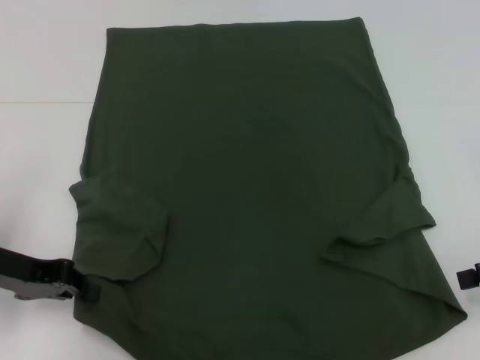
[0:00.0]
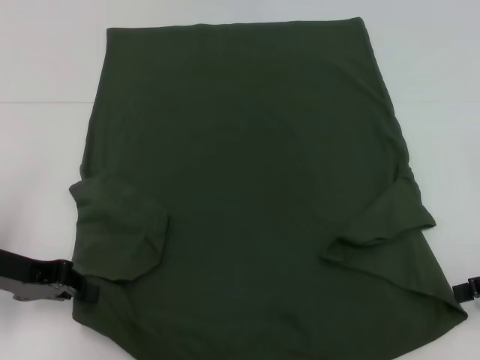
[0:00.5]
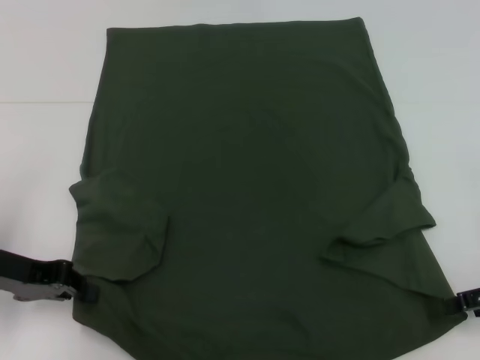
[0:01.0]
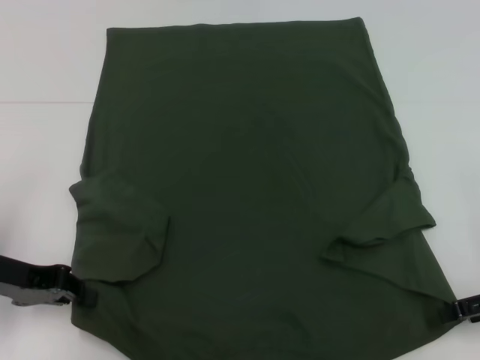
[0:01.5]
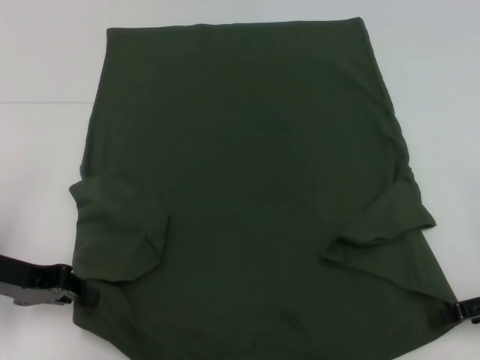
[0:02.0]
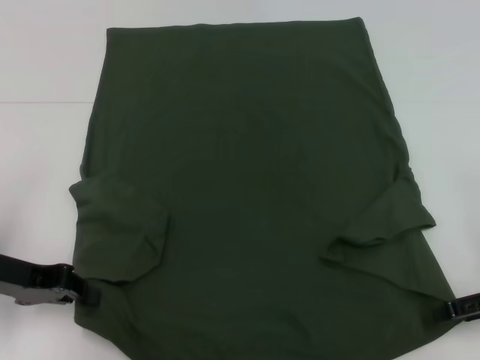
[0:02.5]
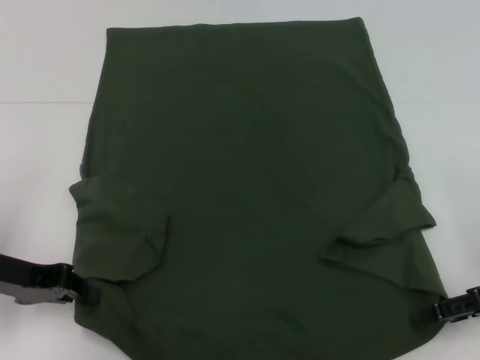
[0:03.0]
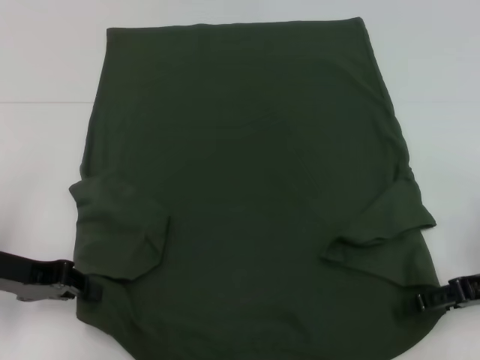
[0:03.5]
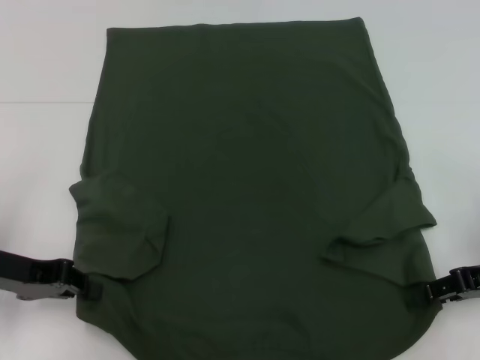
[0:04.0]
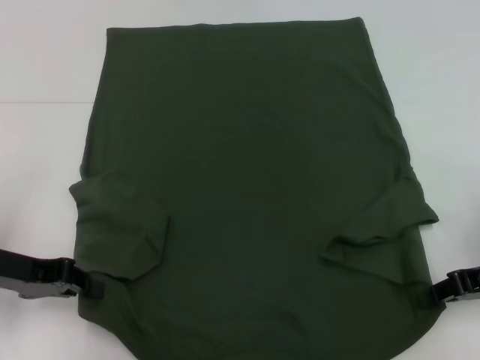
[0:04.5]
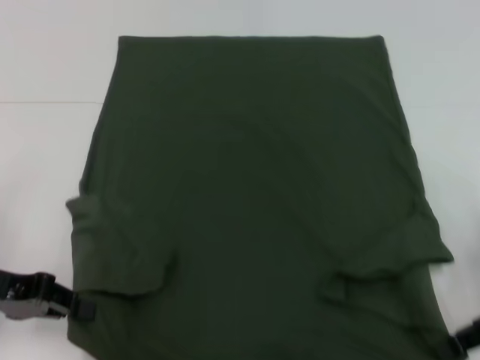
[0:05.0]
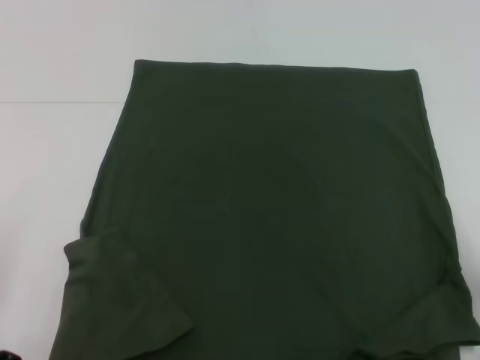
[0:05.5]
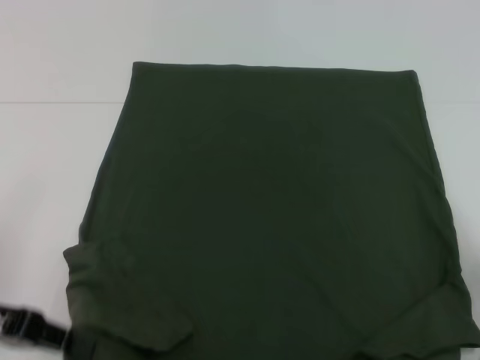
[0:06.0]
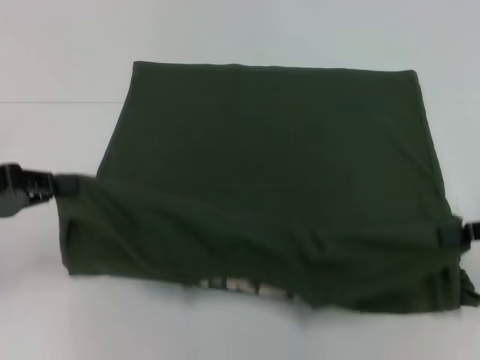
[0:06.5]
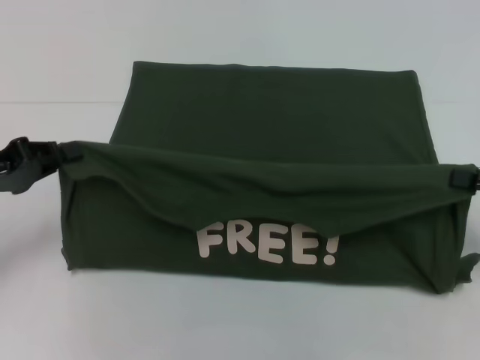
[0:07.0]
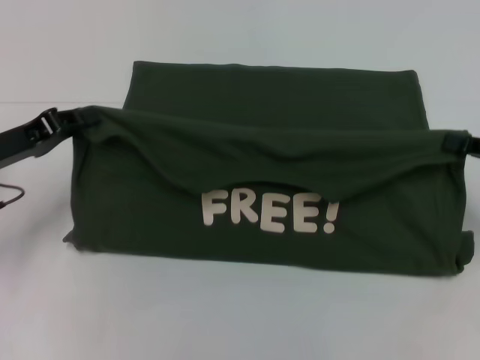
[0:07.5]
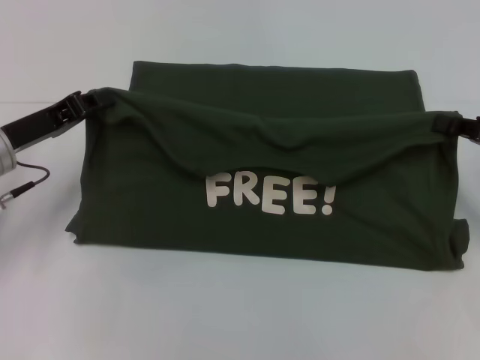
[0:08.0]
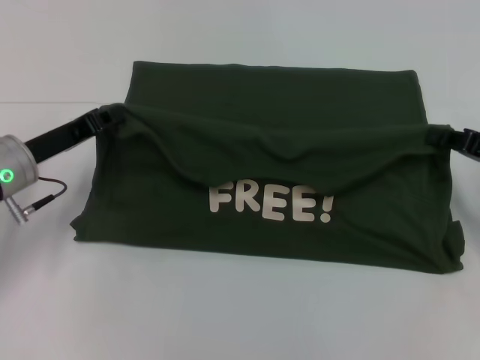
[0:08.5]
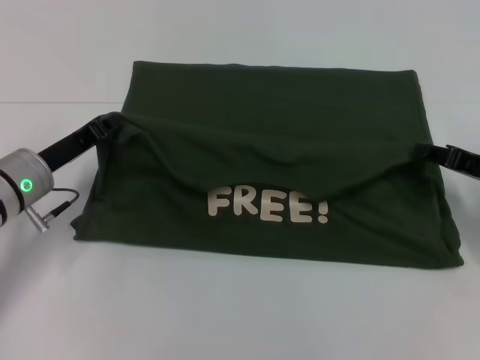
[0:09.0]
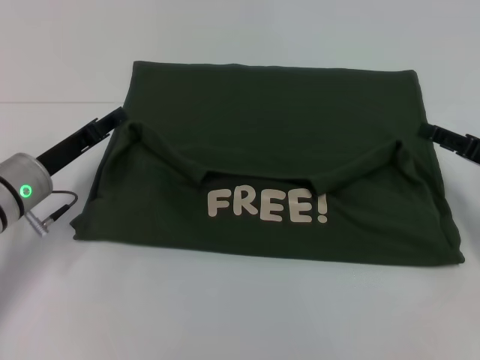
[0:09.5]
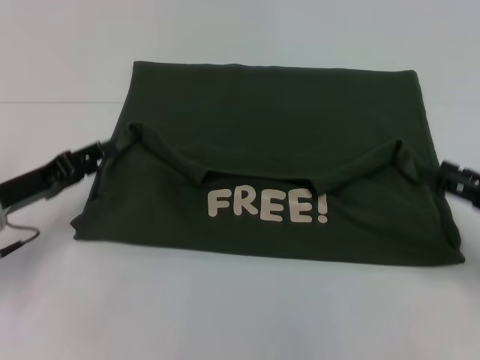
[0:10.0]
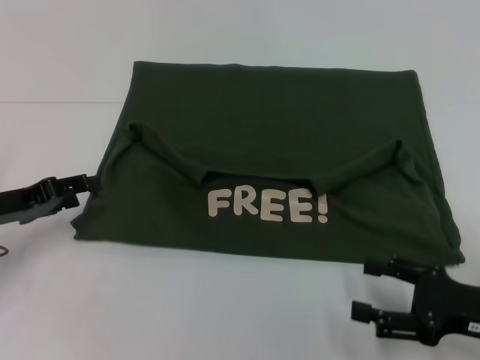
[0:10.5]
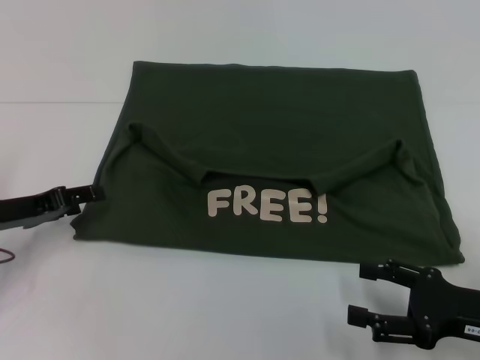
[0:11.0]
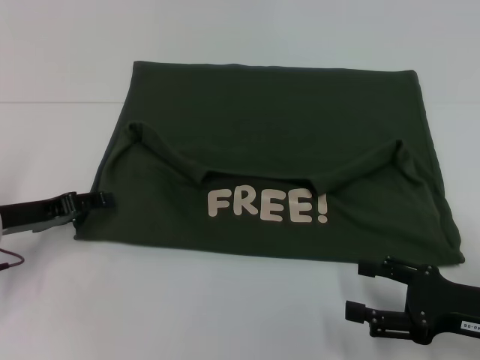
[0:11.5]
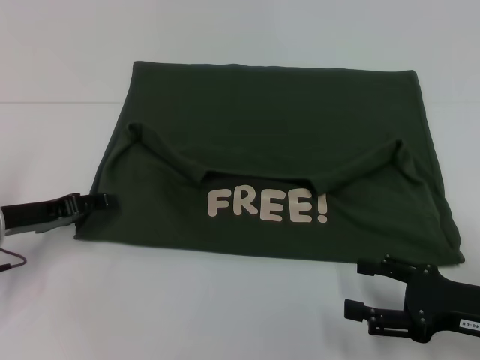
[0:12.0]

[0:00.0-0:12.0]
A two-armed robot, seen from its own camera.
Step, 0:00.0 to 0:02.5: Grab the bottom left corner with your left hand.
Step, 0:00.0 to 0:02.5: Grab the bottom right corner with your right hand.
Step, 0:03.0 to 0:09.0: Fold the clothes with your left hand.
Step, 0:03.0 to 0:09.0: Fold the clothes with your right hand.
0:00.0 to 0:02.0: The grippers stay close to where they were, moving slightly.
0:02.0 to 0:04.0: There are only small adjustments of the grippers.
0:04.0 to 0:06.0: The right gripper closes.
0:06.0 to 0:08.0: Both grippers move forward, some 10 cm.
0:08.0 to 0:10.0: The right gripper moves backward, about 5 cm, and opens its fingers. The left gripper shifts by some 5 cm, and opens its fingers.
0:10.0 to 0:12.0: The right gripper shifts approximately 5 cm to the left.

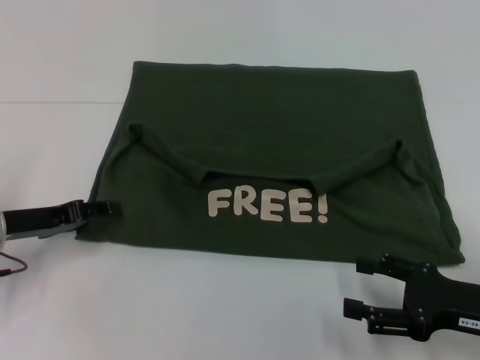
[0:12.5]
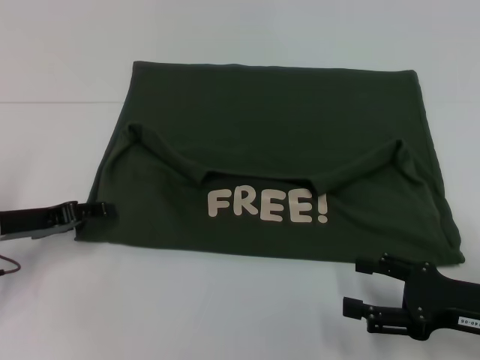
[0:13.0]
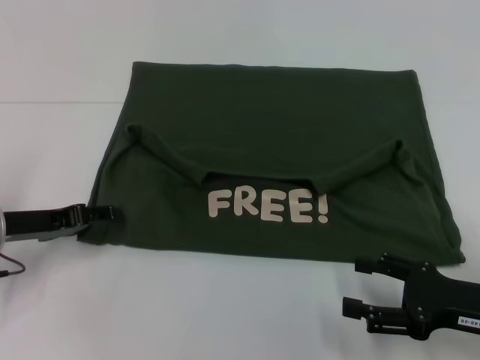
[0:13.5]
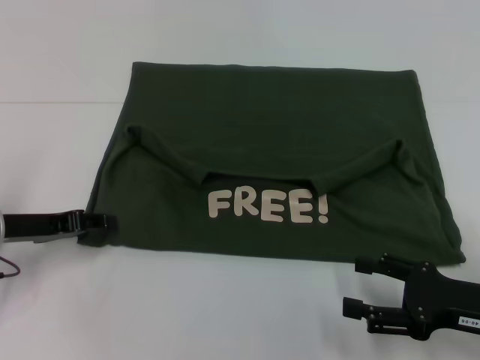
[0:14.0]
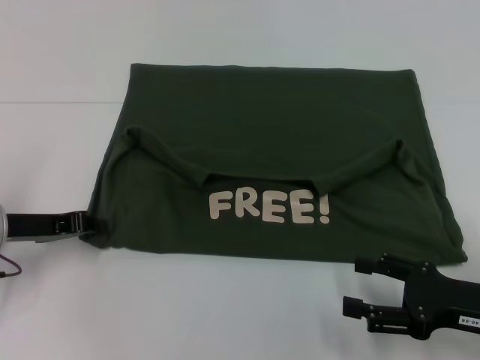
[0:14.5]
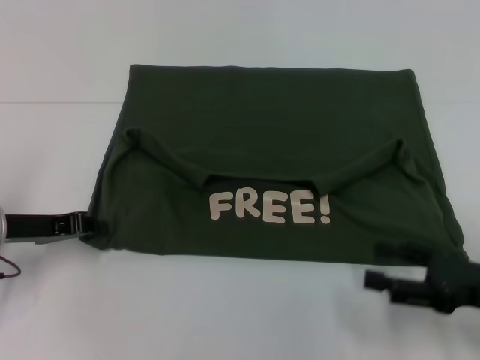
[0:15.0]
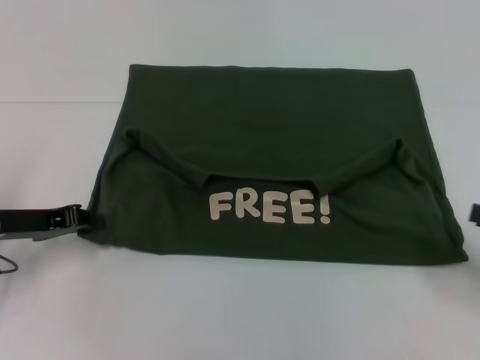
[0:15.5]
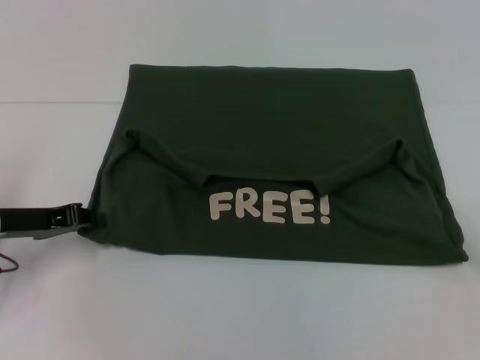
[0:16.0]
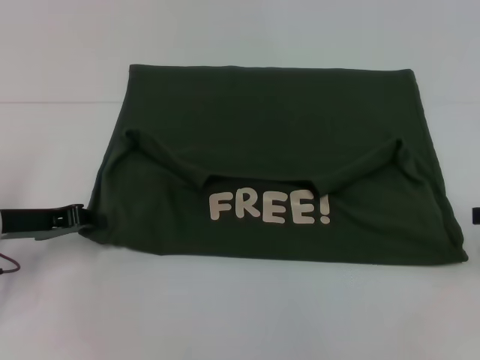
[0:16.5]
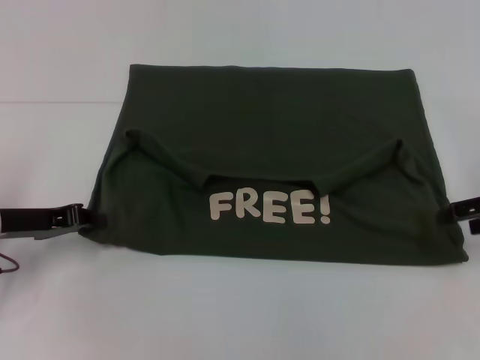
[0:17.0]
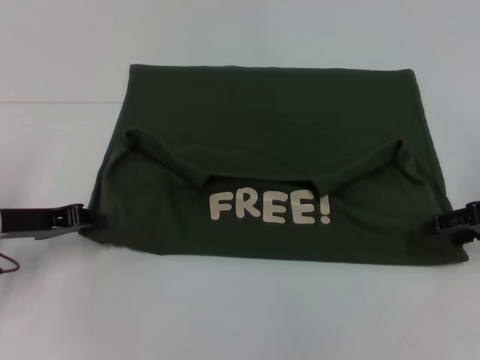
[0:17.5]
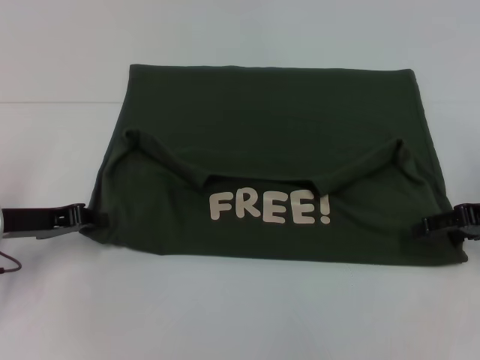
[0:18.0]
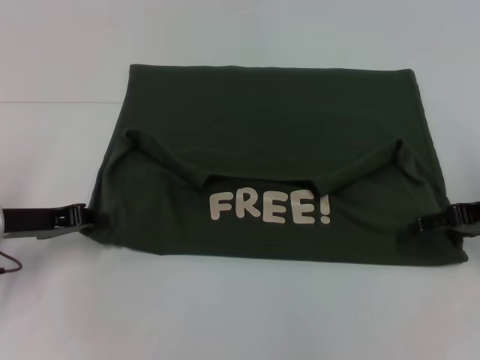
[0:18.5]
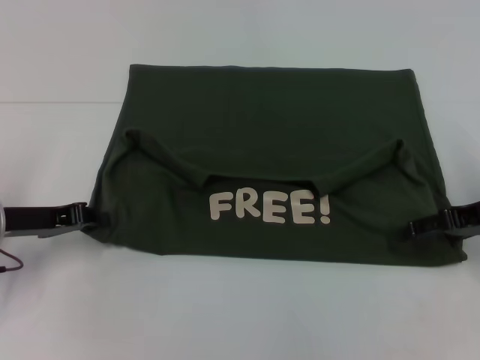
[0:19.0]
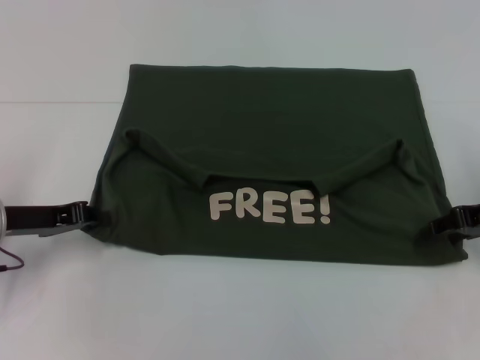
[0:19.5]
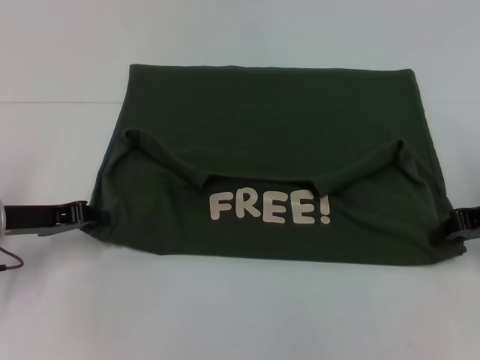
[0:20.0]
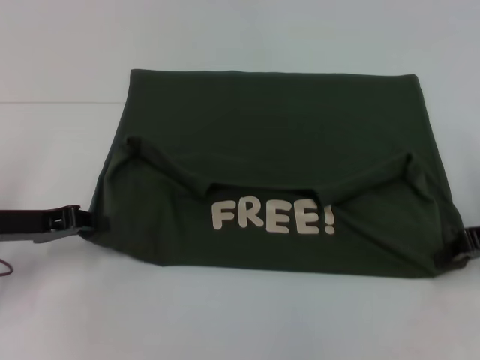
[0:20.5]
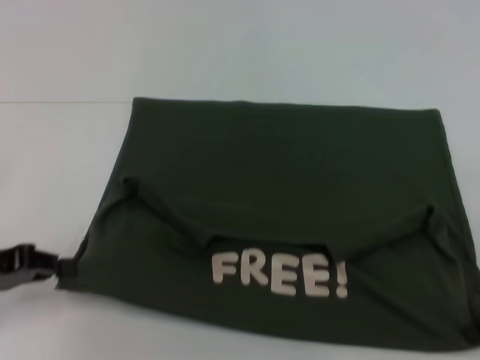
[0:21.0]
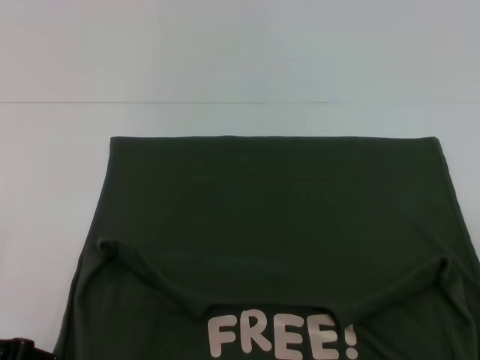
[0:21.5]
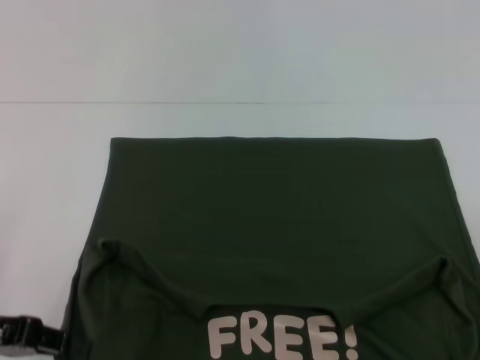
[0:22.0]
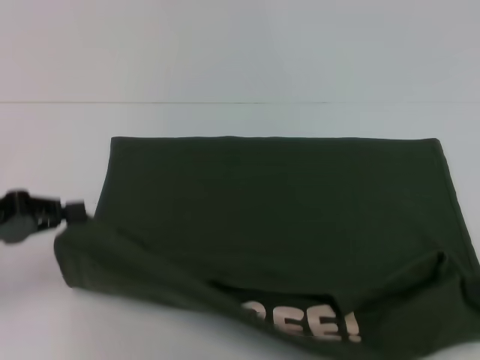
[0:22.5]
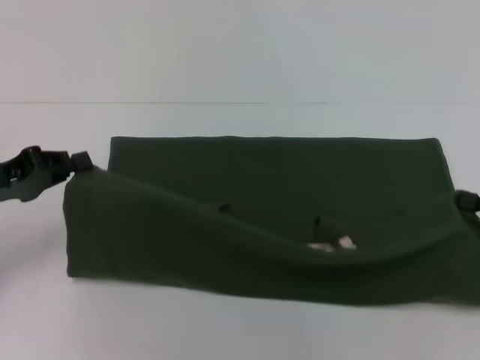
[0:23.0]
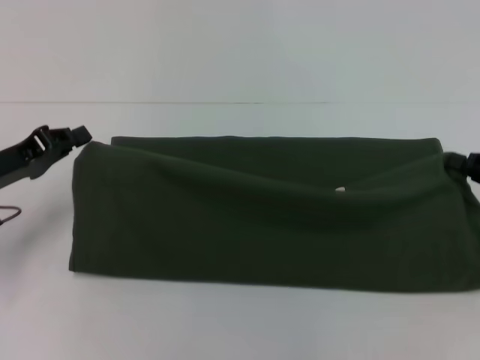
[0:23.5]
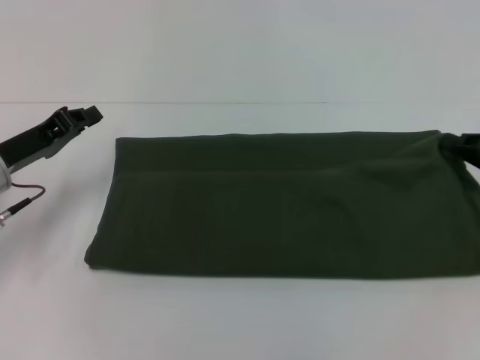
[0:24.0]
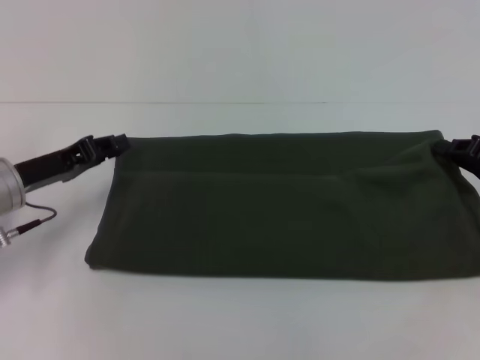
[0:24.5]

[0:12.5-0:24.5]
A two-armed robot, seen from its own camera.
Step, 0:12.5 to 0:21.5: Pull the clothes with your left hand.
Step, 0:12.5 to 0:21.5: Pull the clothes with your right hand.
0:12.5 to 0:14.5: The left gripper closes its fingers.
0:14.5 to 0:16.5: The right gripper is displaced to the right, upward and forward by roughly 15 cm.
0:16.5 to 0:18.5: The right gripper heads to the left, covering approximately 5 cm.
0:18.5 to 0:20.5: The right gripper closes its fingers.
0:20.5 to 0:22.5: The right gripper goes about 10 cm backward and to the right.
0:22.5 to 0:24.5: The left gripper heads forward and to the right, covering about 10 cm. Meanwhile the right gripper goes about 10 cm forward.

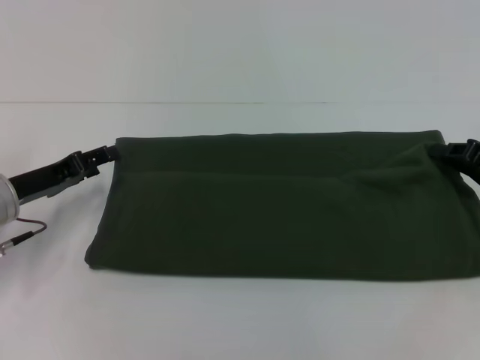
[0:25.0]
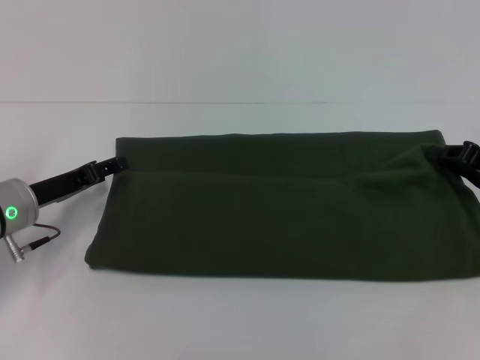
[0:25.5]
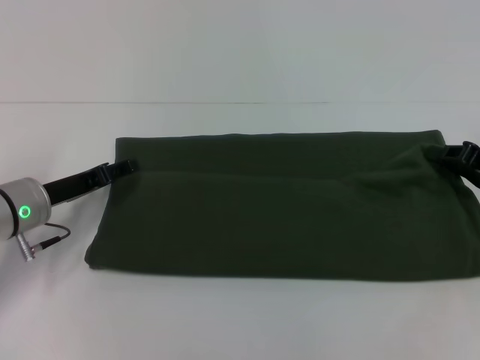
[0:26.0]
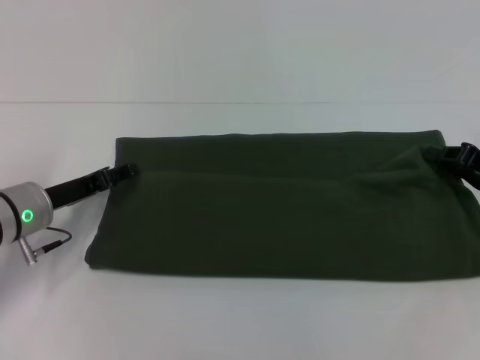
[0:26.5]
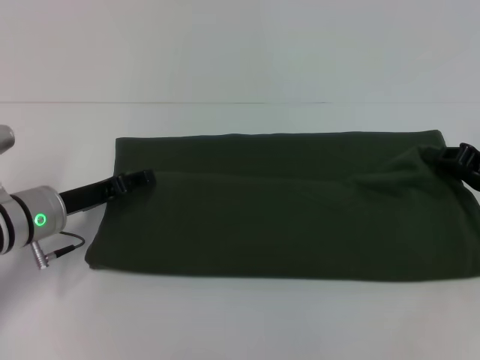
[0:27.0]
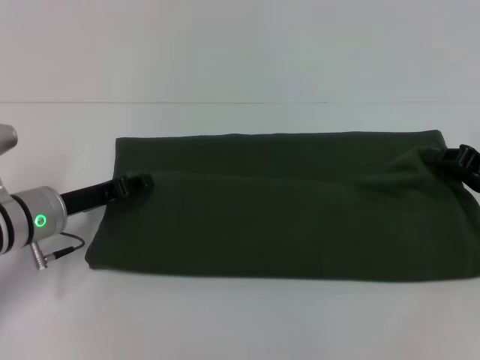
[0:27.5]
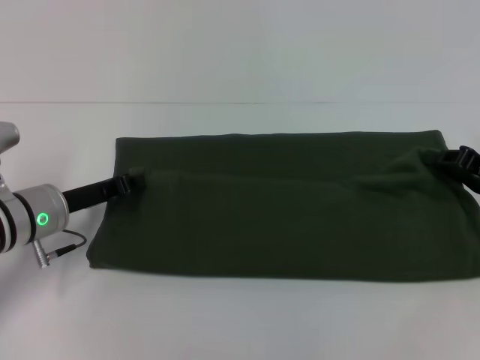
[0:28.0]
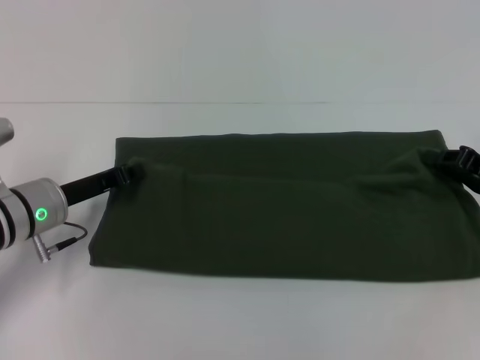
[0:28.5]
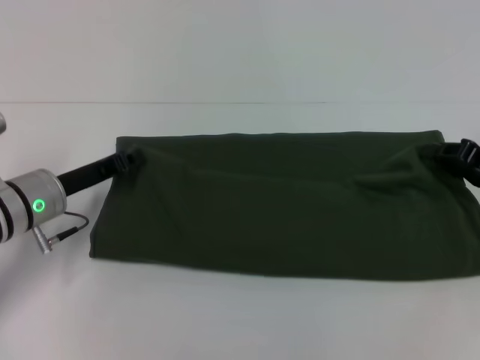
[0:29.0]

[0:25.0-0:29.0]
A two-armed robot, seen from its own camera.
0:25.0 to 0:27.0: There are only small adjustments of the grippers.
0:27.0 to 0:29.0: The left gripper closes up.
